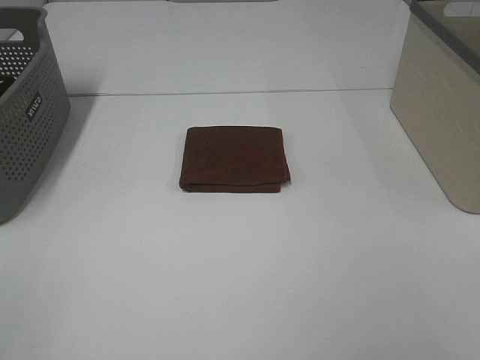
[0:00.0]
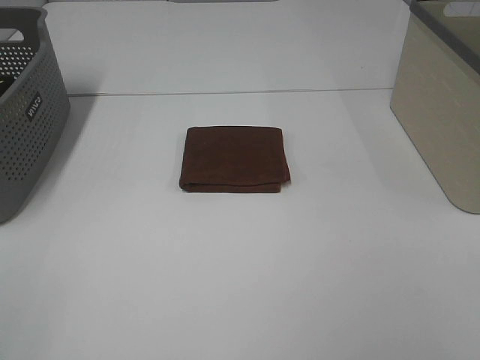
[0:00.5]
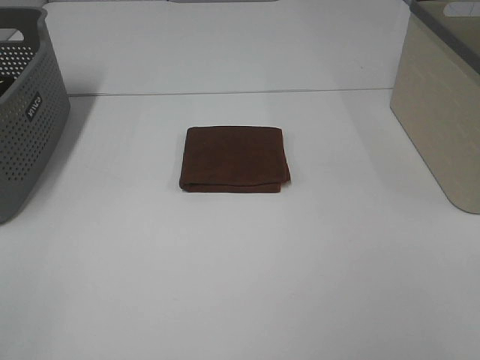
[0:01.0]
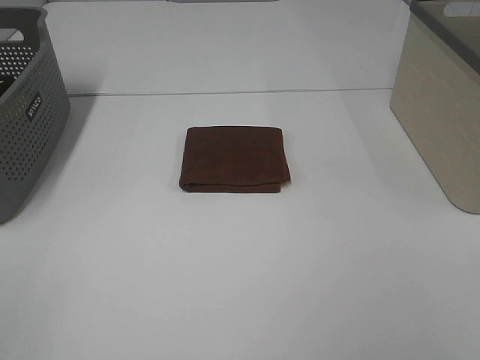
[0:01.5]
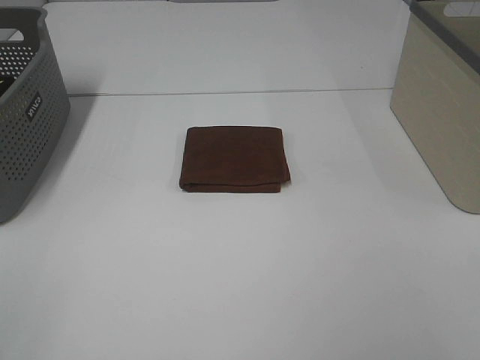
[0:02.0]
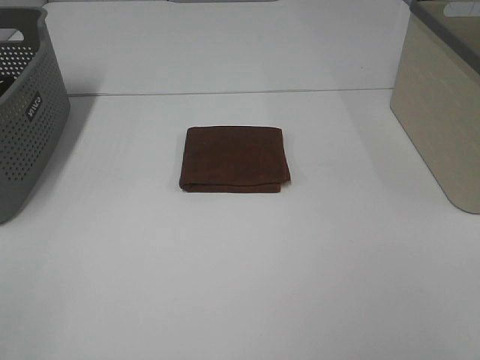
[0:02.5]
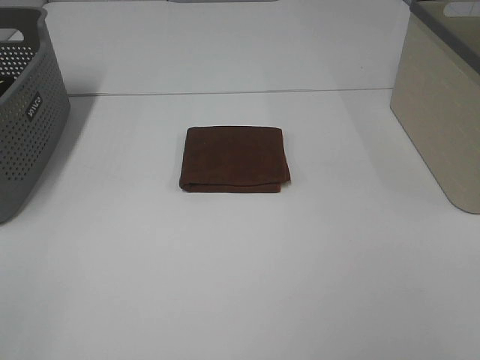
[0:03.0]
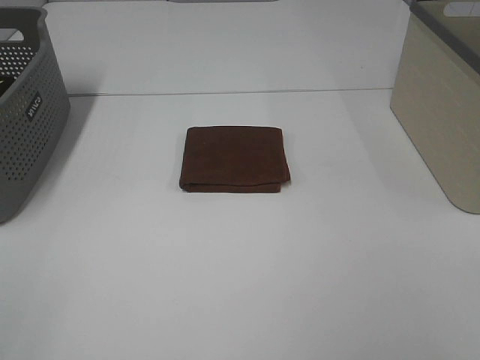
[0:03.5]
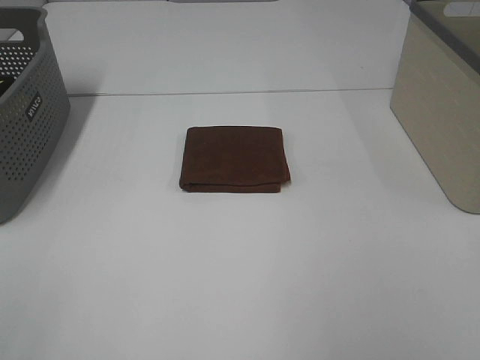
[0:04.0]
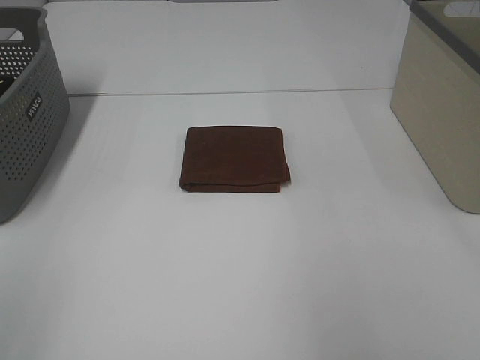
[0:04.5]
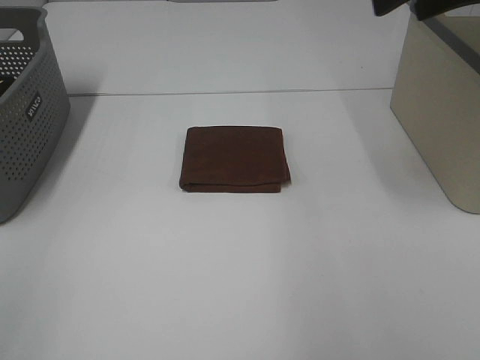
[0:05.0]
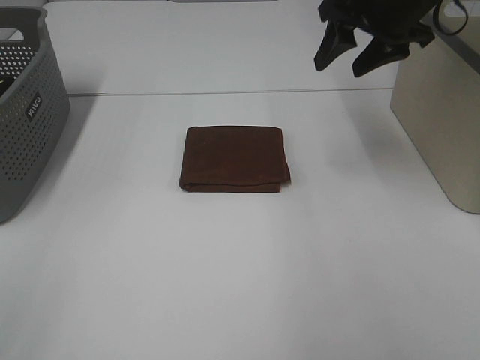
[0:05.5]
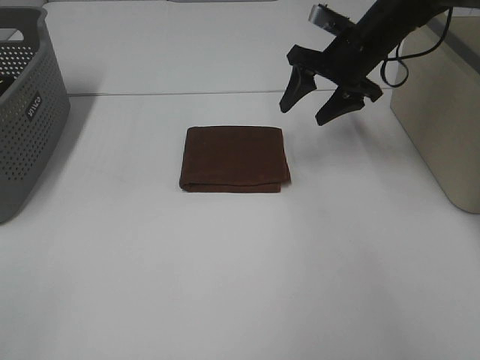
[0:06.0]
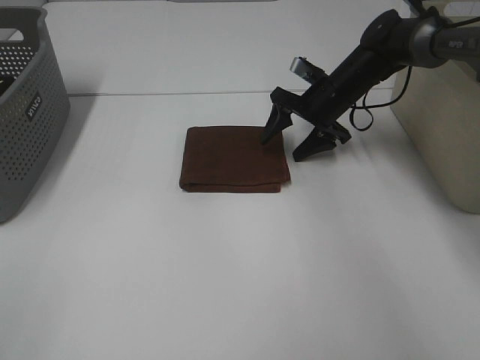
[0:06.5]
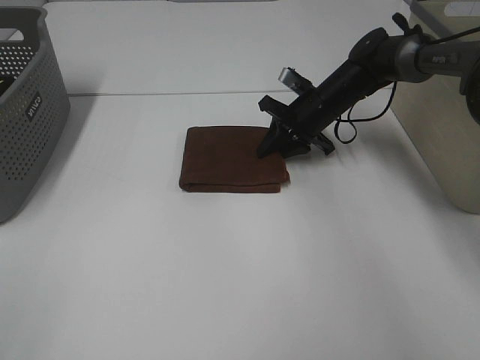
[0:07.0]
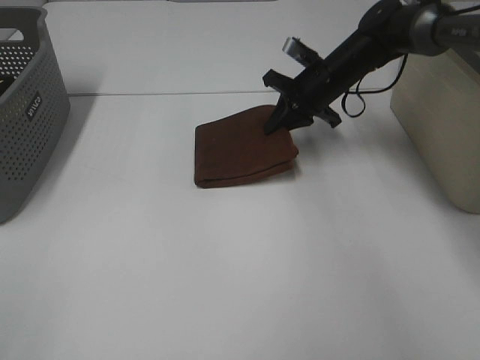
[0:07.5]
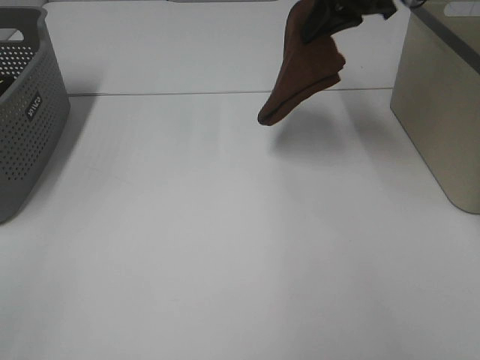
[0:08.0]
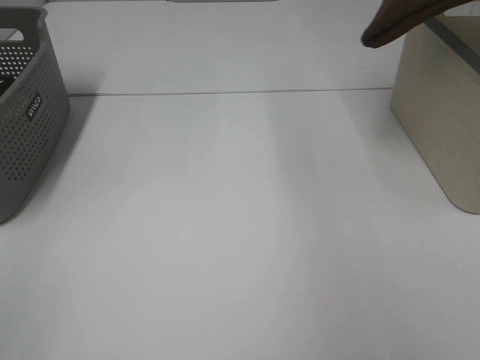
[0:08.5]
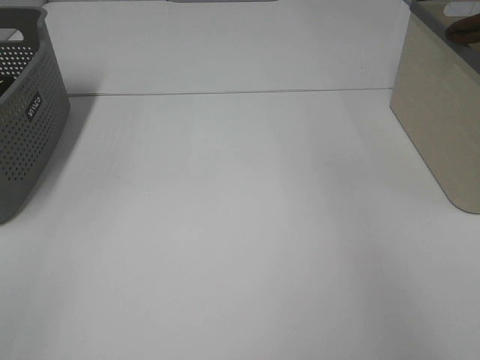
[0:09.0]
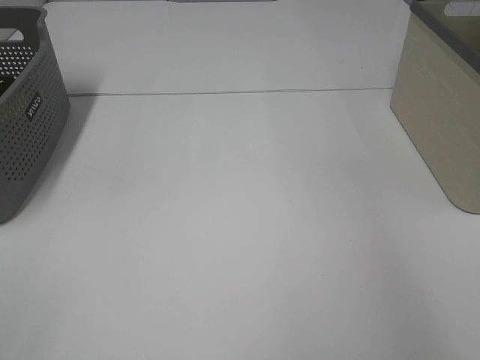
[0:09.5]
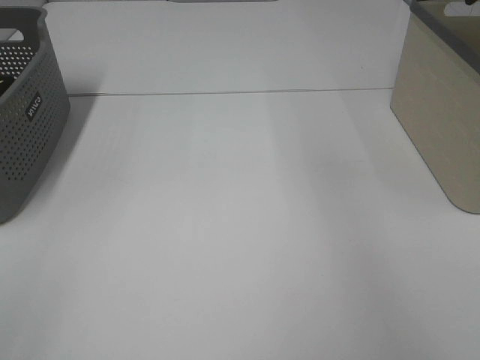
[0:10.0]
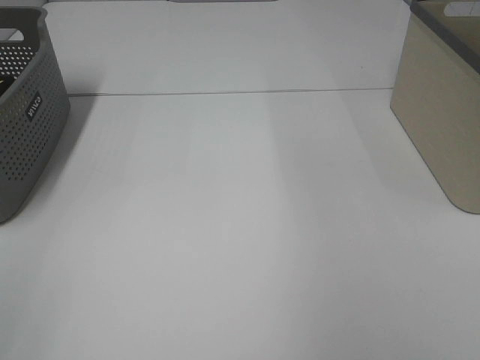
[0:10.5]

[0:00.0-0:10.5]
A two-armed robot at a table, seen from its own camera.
Step, 0.0 to 7.0 s: Right hand: grab the folded brown towel.
Step, 7.5 to 9.5 s: Right hand: place the brown towel in right basket.
0.0 to 2.0 s: Neither gripper changes place.
4.0 to 6.5 s: The right gripper travels forward and downward by about 50 cm.
6.5 to 8.5 s: The right gripper heads upward, covering some 30 cm, and closes.
8.5 to 10.5 s: The right gripper moves backward, some 5 cm, moves roughly 10 cm to the right and comes back, and opens.

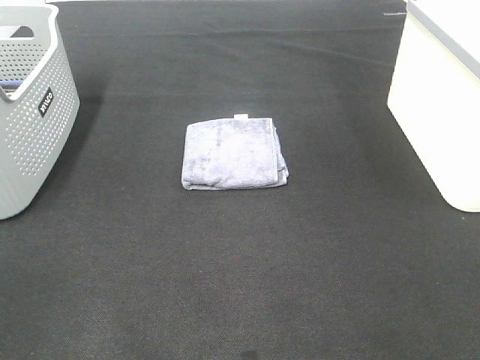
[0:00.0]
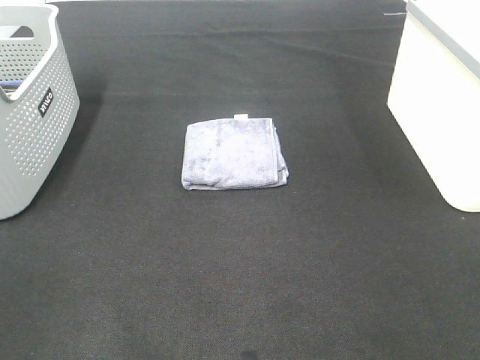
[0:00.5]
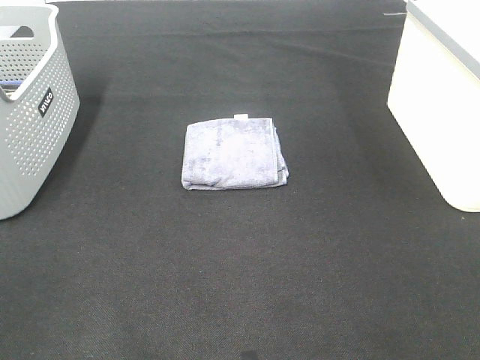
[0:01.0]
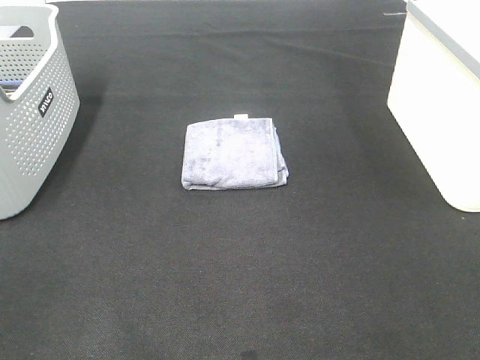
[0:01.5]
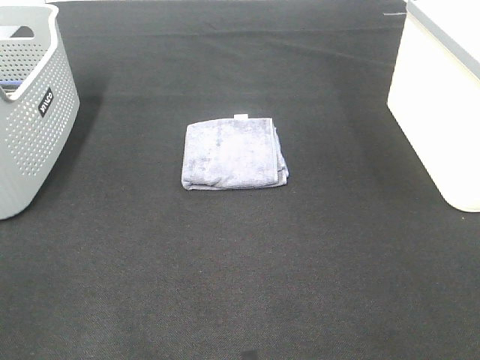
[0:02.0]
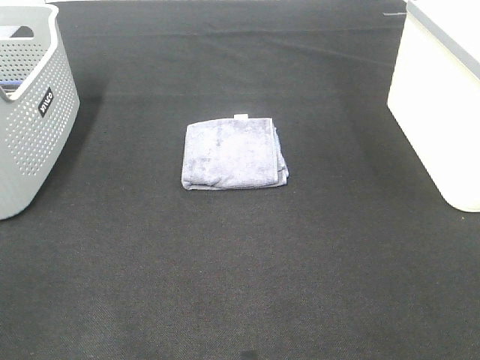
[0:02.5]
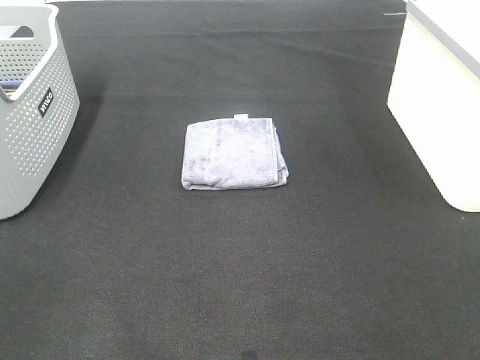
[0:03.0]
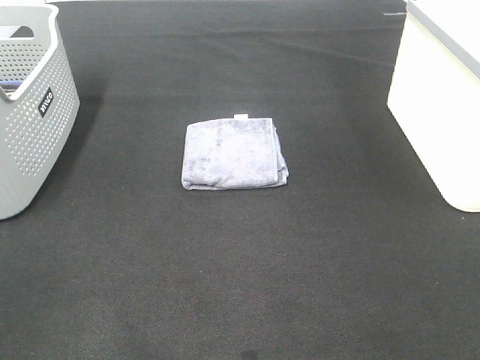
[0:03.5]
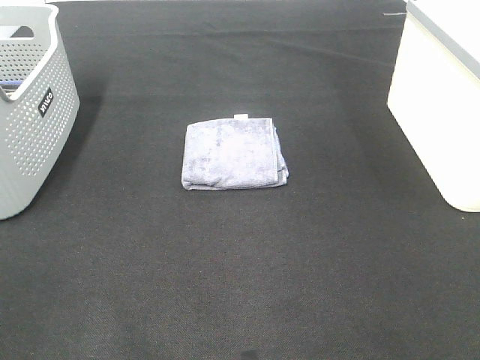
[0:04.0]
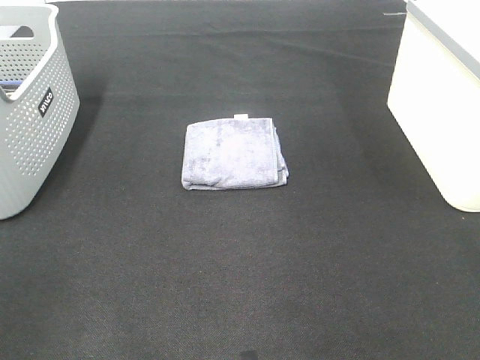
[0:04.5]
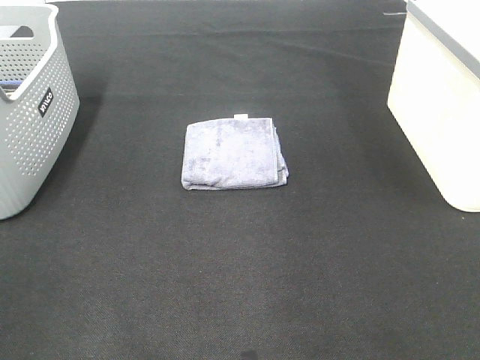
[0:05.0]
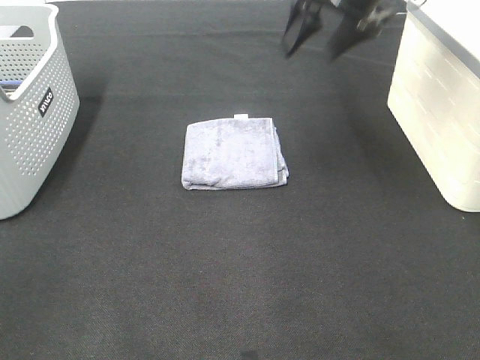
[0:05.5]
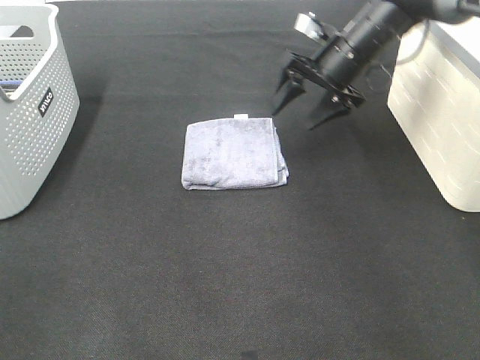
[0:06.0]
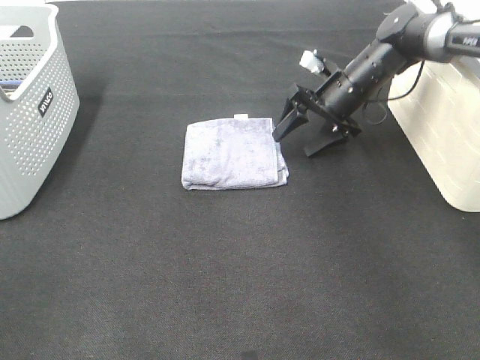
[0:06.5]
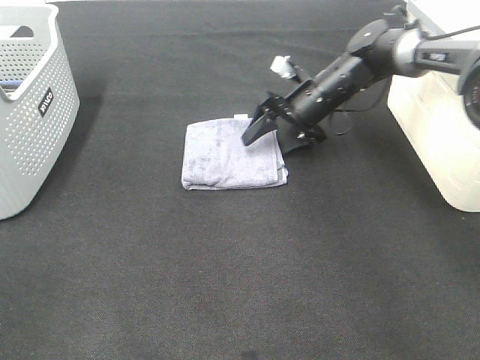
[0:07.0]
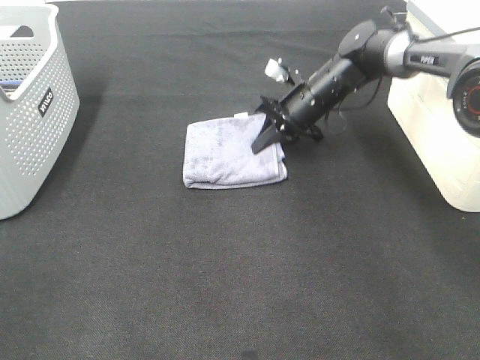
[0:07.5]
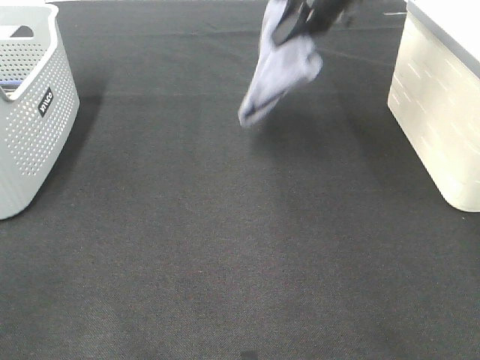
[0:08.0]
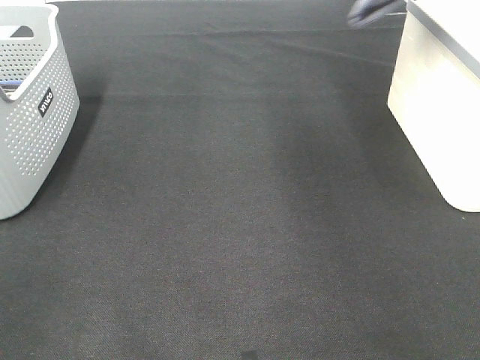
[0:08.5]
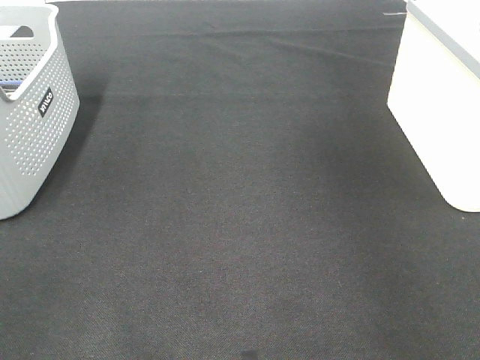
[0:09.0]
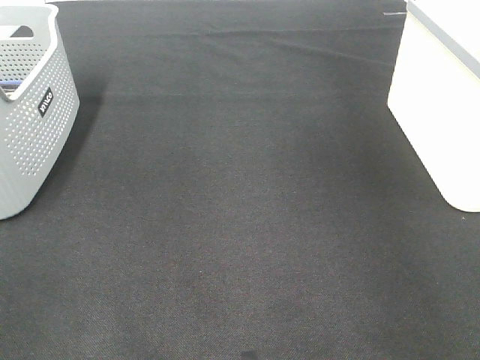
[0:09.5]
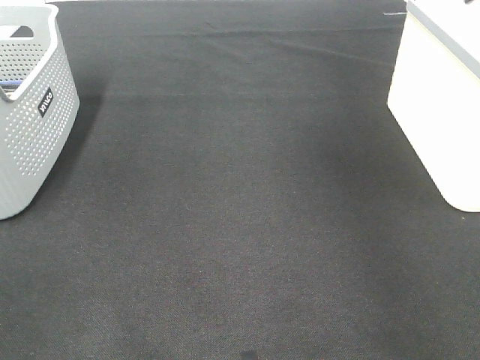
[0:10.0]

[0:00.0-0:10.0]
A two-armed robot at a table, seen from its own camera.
Step, 0.0 to 7.0 s: Right hand: grab the folded grey towel.
Step, 7.5 to 9.5 s: Right hand: place the grey towel in right basket.
0.0 to 2.0 s: The two grippers keep their place.
4.0 to 6.0 s: The right gripper travels forward by roughly 40 cm.
6.0 to 8.0 s: The right gripper moves upward, roughly 15 cm, and closes up.
8.0 to 10.0 s: The right gripper heads to the right, covering roughly 20 cm, and opens its fingers.

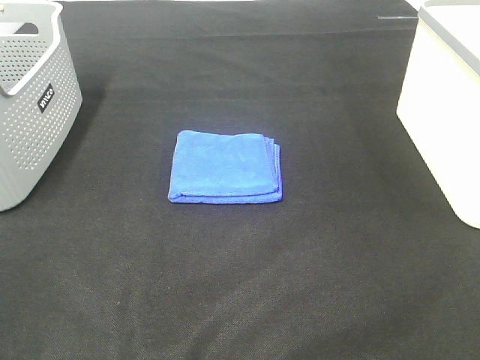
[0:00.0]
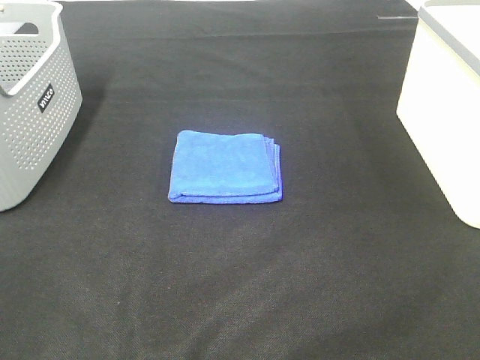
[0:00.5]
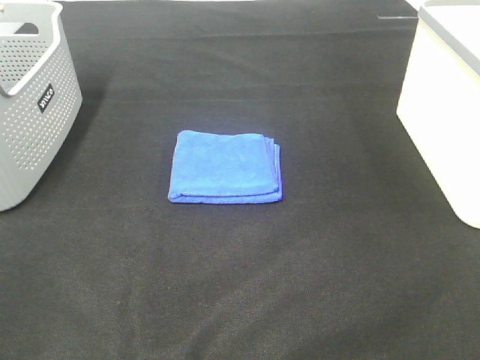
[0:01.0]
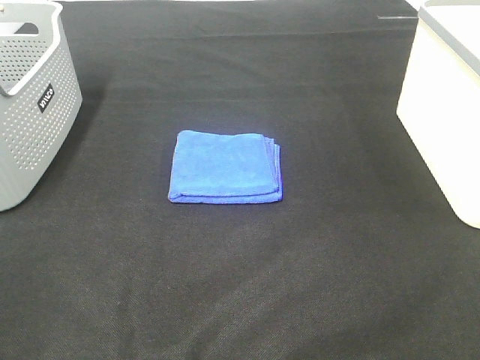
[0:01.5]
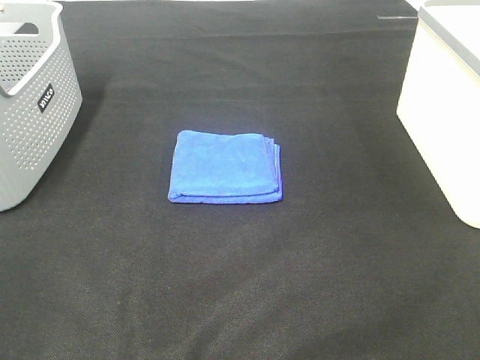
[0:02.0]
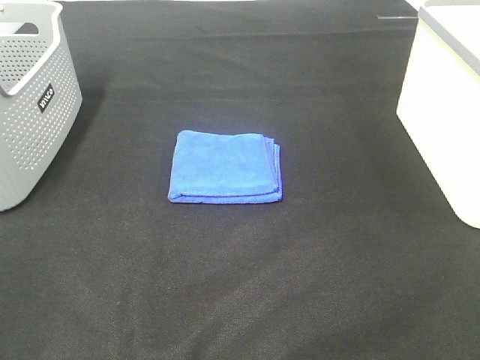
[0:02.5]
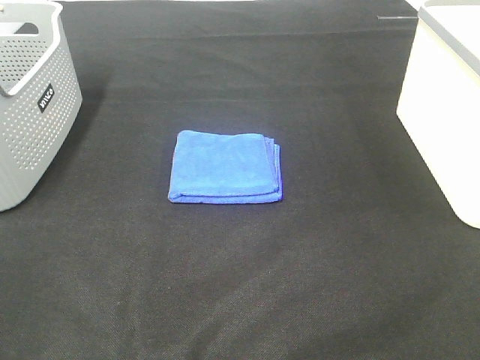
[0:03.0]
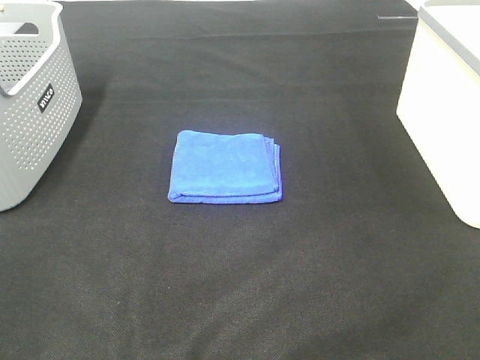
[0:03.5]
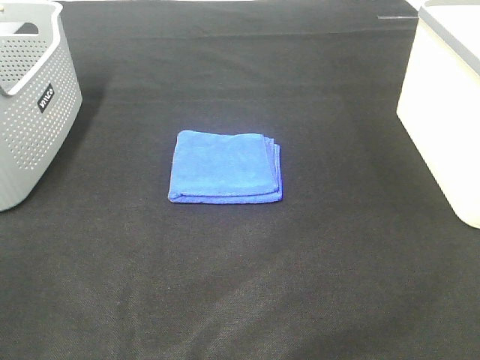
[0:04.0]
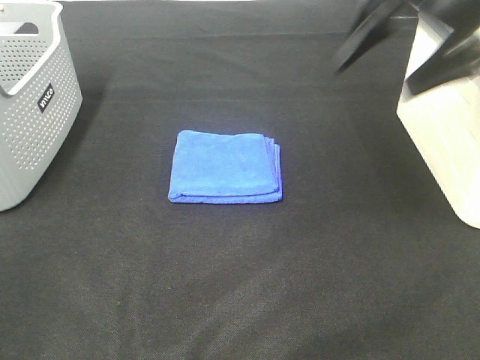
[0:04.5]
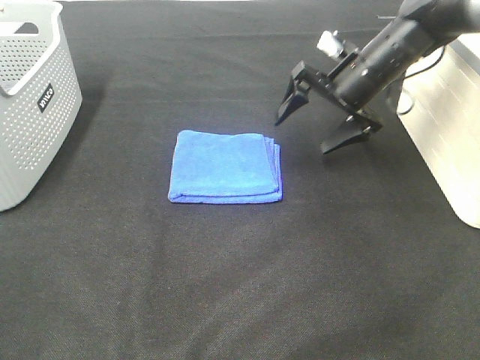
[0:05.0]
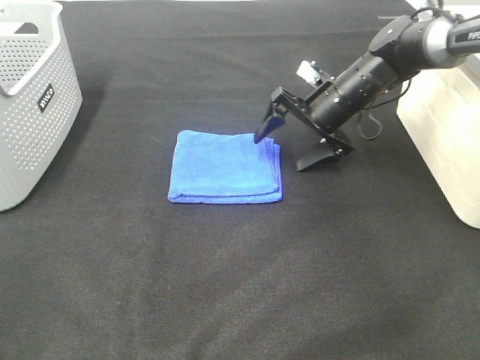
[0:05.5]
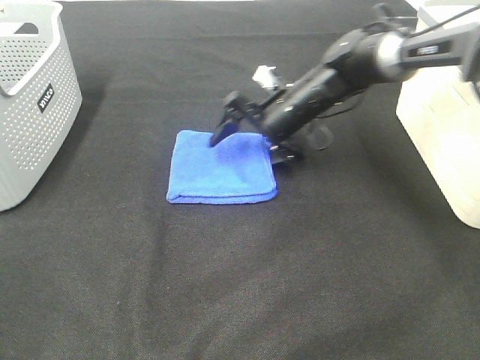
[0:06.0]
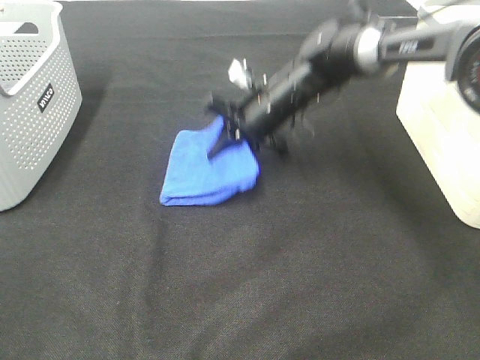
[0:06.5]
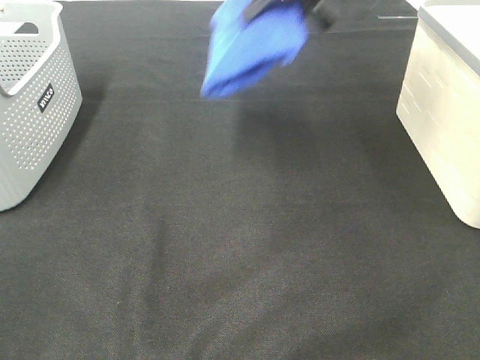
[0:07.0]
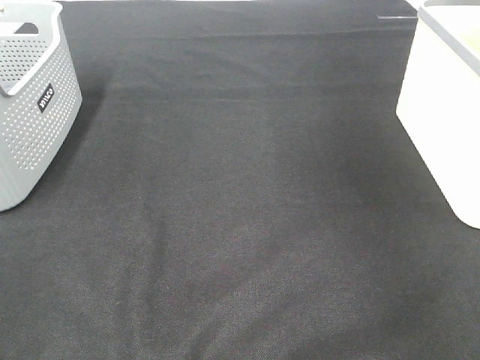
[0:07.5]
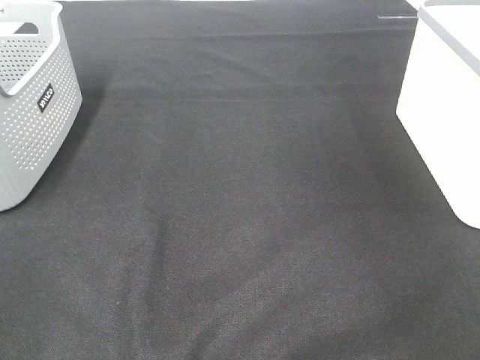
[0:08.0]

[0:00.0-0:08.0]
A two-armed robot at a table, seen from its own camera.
Step, 0.0 to 6.0 s: Right hand: grab the folded blue towel.
0.0 to 2.0 s: Both grippers stay about where they are.
4.0 to 6.0 s: The right gripper shifts some 50 cm downward, forward and to the left.
6.0 to 8.0 s: The right gripper shifts some 50 cm to the right and upward, and closes up.
